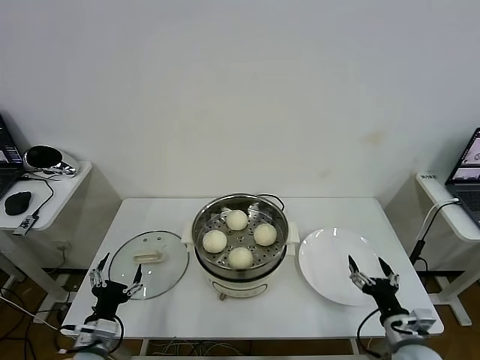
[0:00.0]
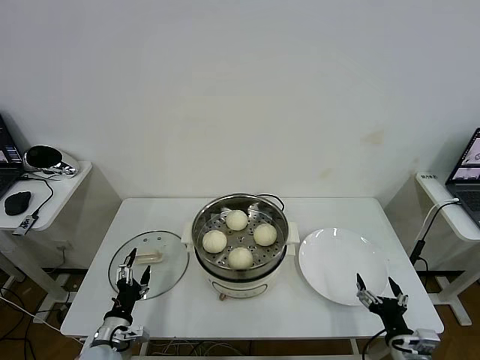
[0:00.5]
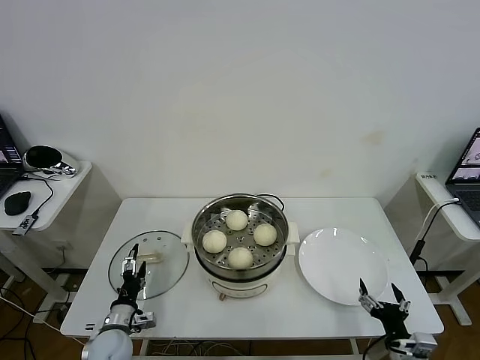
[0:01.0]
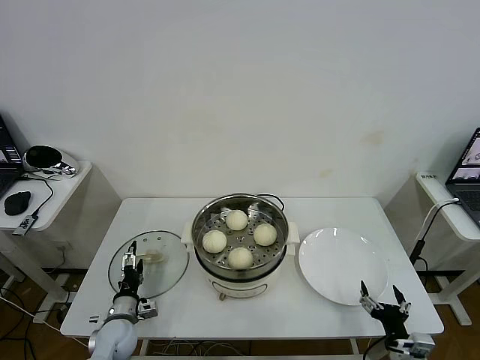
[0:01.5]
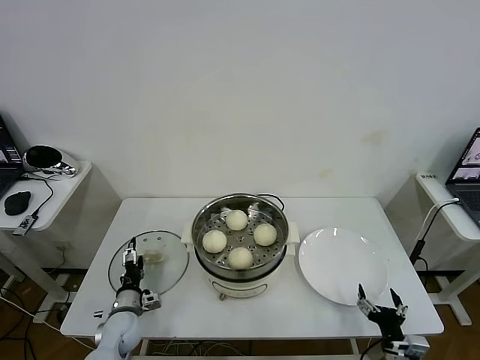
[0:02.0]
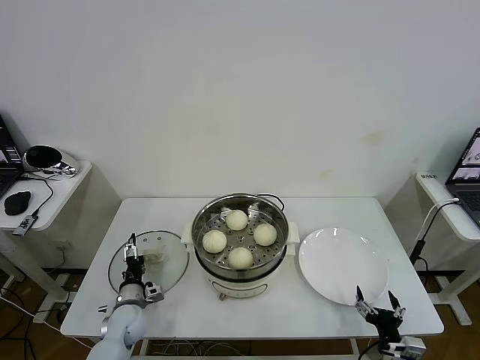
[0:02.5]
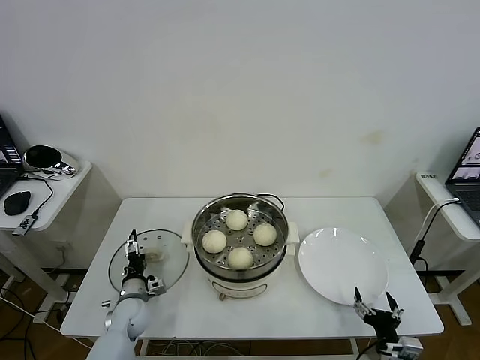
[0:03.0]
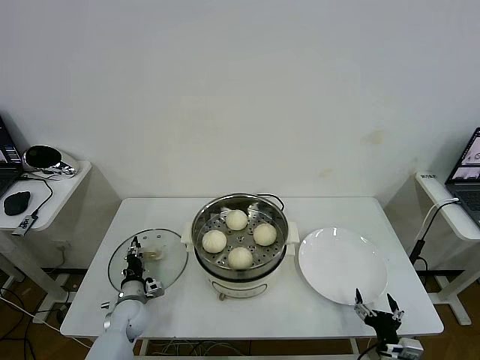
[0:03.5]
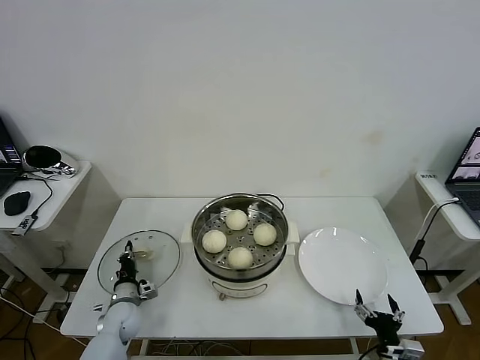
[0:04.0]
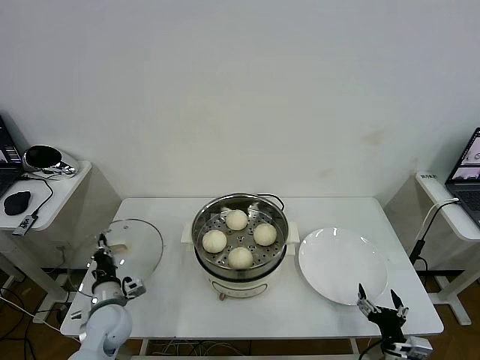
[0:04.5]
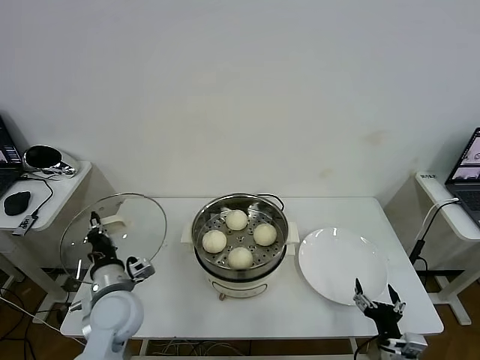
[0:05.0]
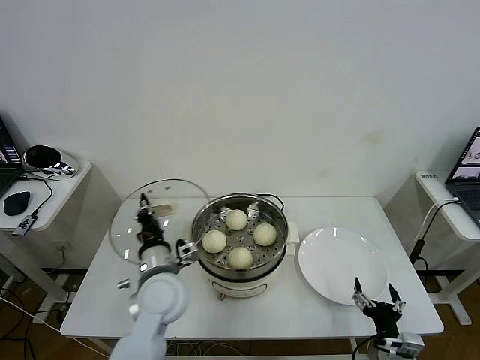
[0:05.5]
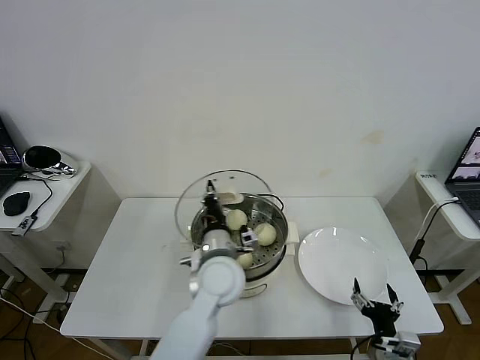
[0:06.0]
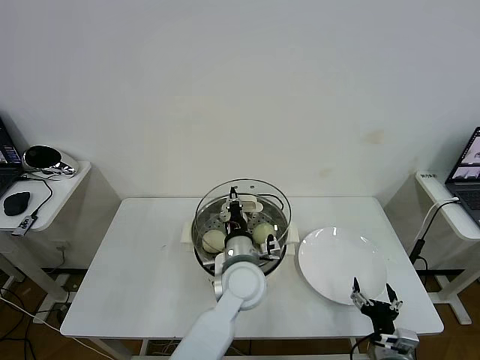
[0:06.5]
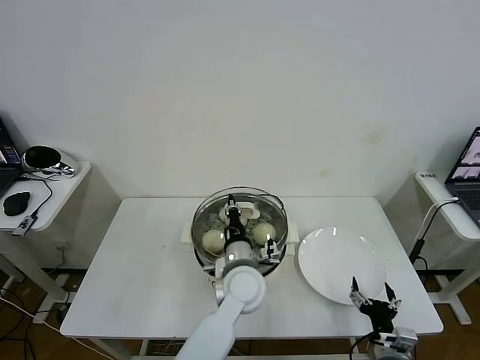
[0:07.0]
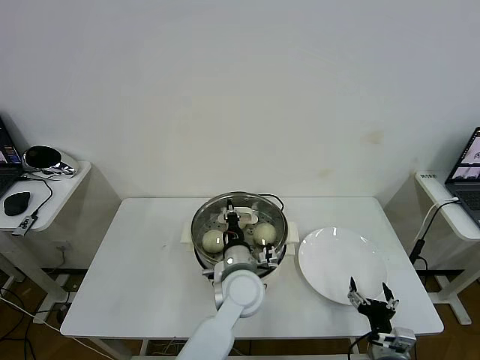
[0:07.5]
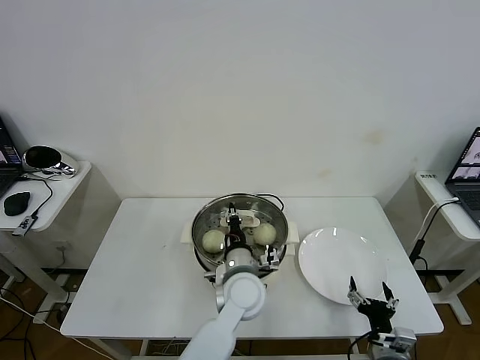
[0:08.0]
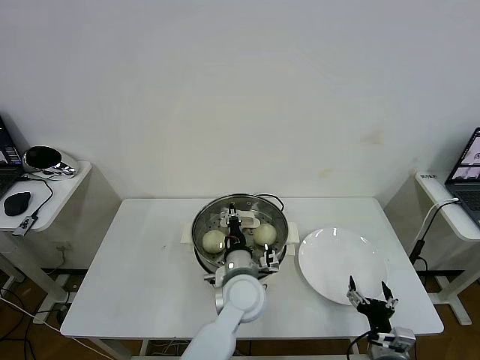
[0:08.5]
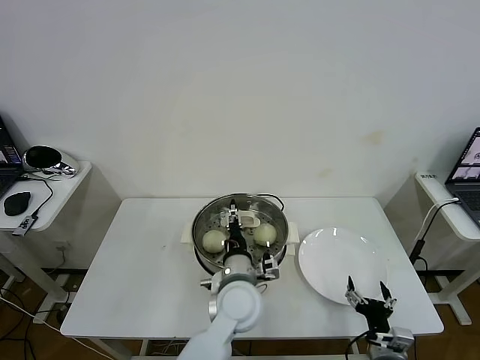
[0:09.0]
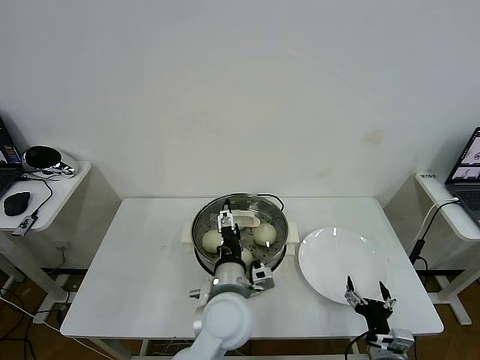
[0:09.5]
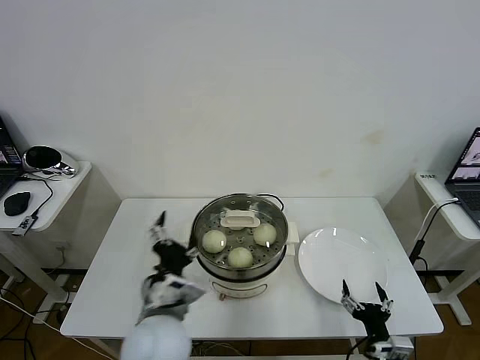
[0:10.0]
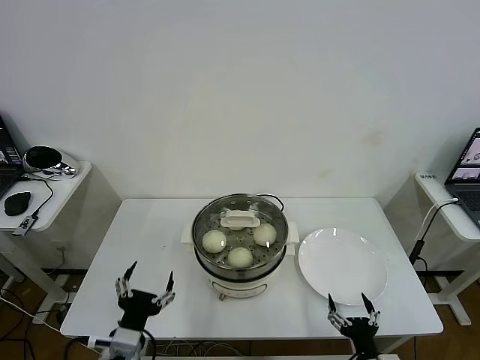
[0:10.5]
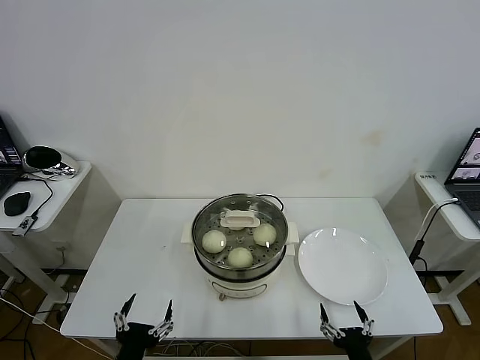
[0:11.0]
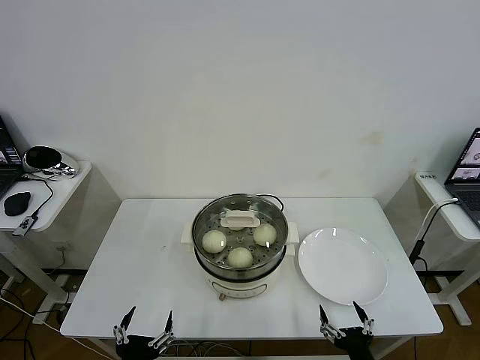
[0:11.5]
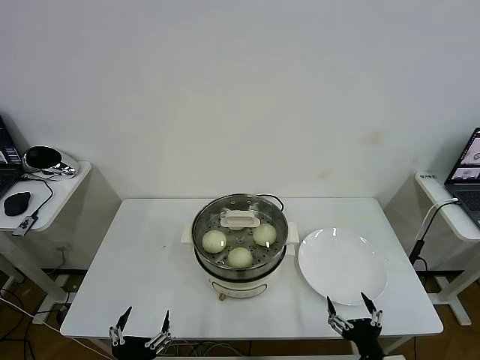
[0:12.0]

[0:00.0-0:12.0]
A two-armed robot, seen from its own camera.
Task of the whole recording: take steamed baozi put them in steamer then cover it.
Step, 0:00.0 to 0:04.0: Grasp the pot lid with left gripper.
Step, 0:04.5 to 0:09.0: Place the pot lid on the steamer with left gripper.
0:00.0 to 0:02.0: The right gripper is displaced downward by roughly 5 cm. Meanwhile the left gripper goes roughly 15 cm forward and downward.
0:02.0 to 0:04.0: The left gripper closes.
0:04.0 to 0:06.0: The left gripper travels to the right and upward by roughly 35 cm.
0:06.0 to 0:08.0: The left gripper is displaced to the right and downward by roughly 10 cm.
0:08.0 to 0:10.0: The left gripper shifts about 15 cm to the left, backward and upward, and opens its fingers.
0:10.0 to 0:12.0: The left gripper goes some 20 cm backward, to the left and downward. The right gripper moves backward, some 5 cm.

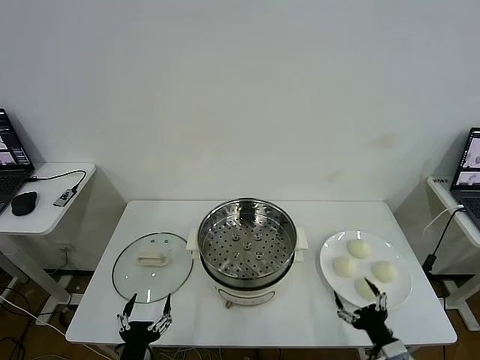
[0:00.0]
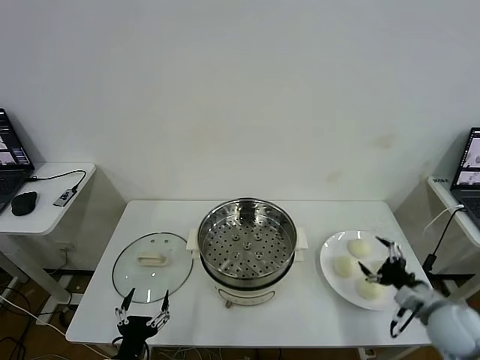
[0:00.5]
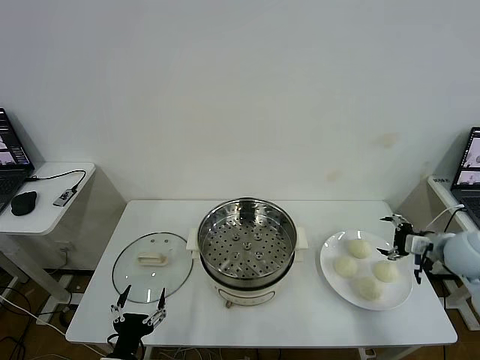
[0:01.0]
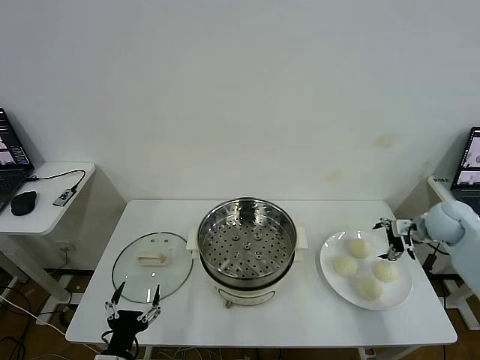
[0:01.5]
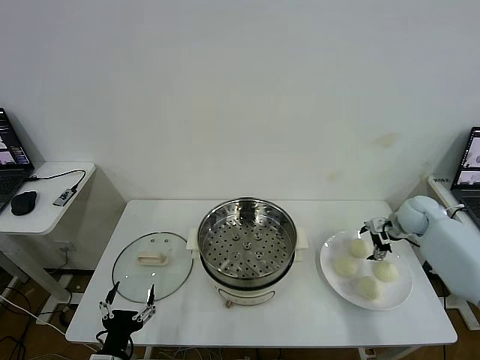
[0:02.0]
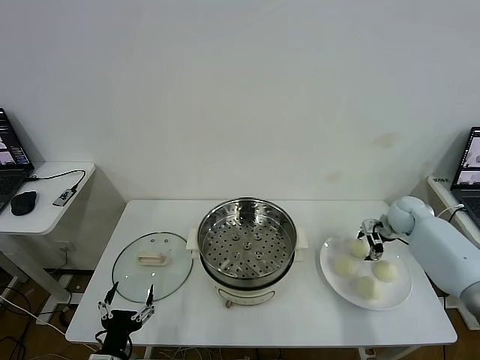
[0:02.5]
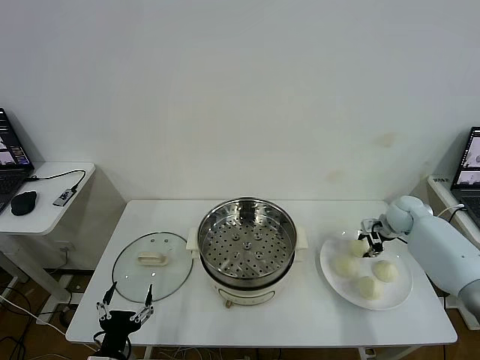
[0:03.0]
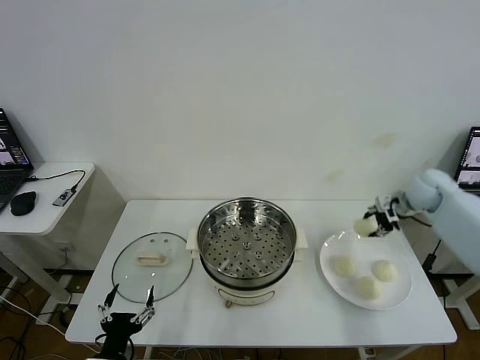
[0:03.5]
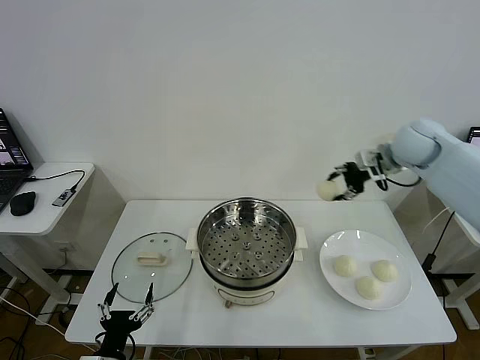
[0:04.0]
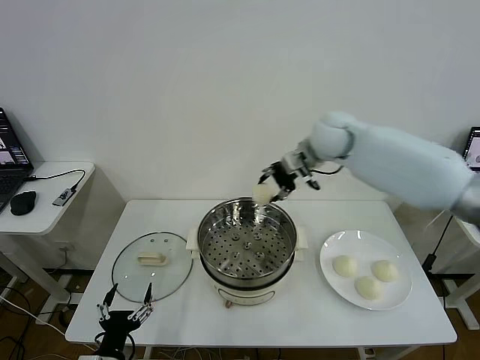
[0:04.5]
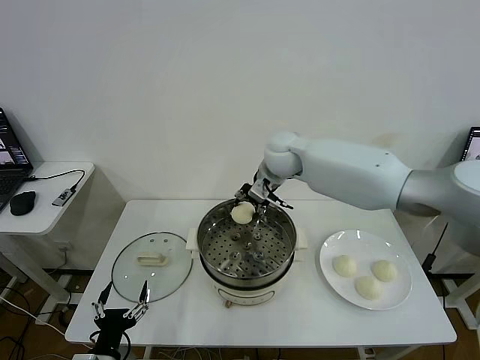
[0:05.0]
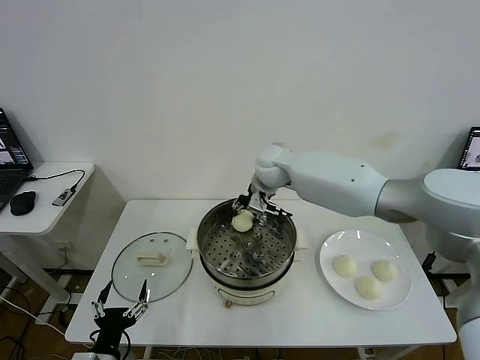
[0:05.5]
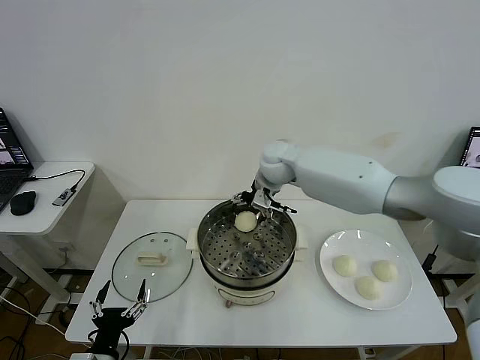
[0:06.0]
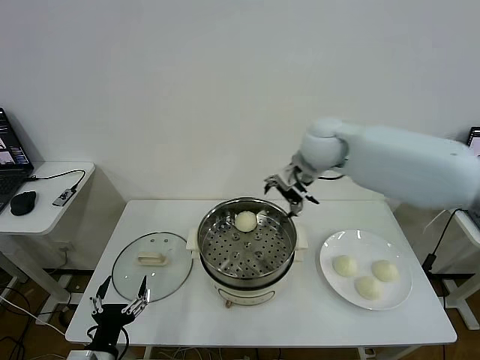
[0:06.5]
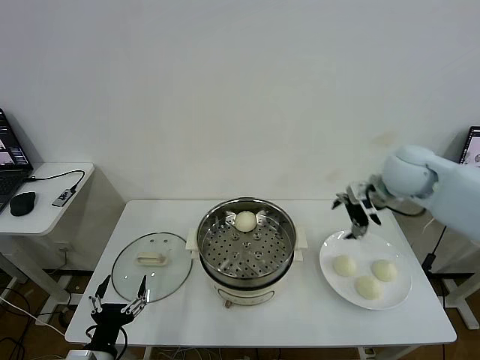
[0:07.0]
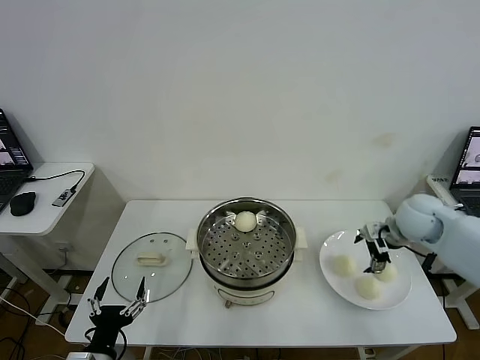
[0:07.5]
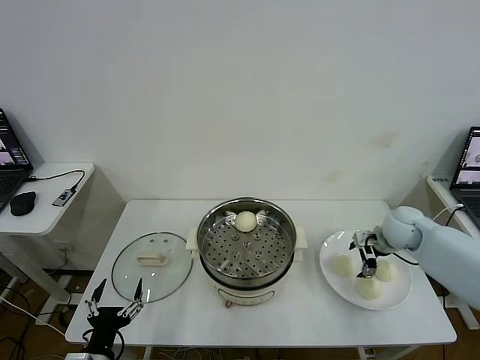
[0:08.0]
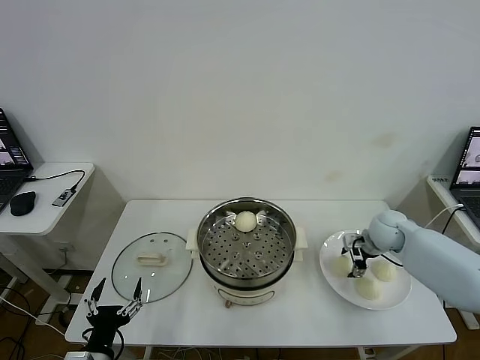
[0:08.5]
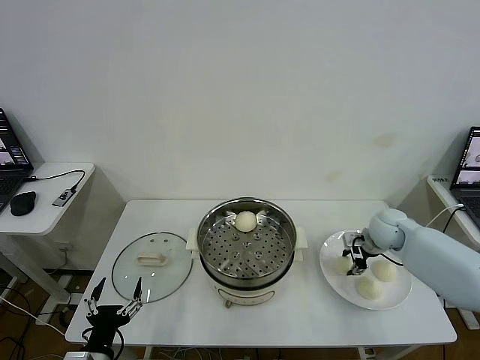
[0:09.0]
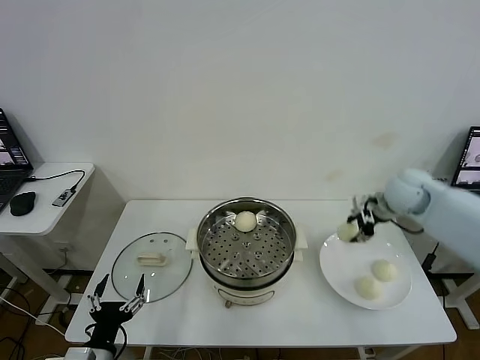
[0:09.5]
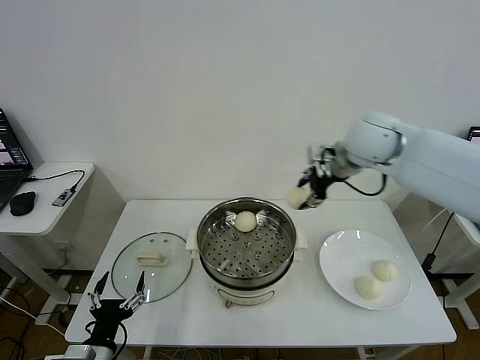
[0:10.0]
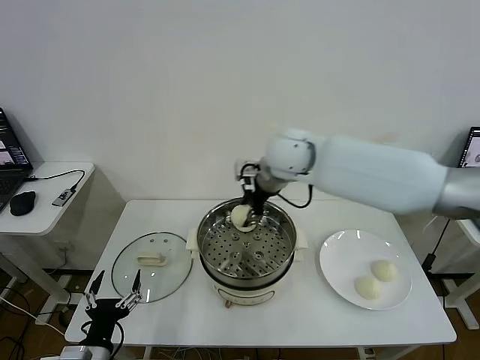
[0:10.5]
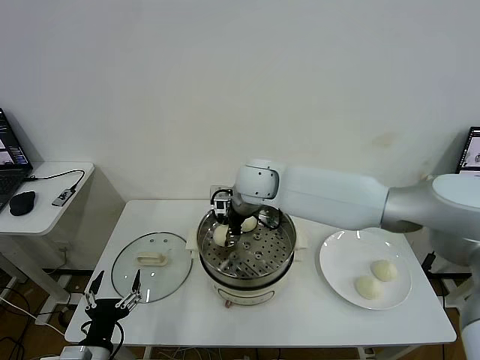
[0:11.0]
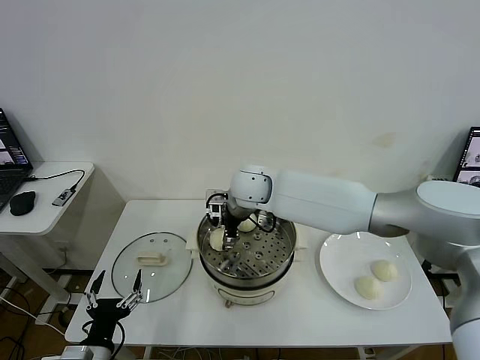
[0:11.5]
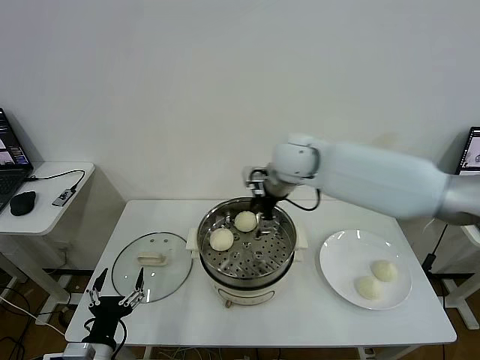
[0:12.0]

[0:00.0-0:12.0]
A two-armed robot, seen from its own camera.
Task of the whole recording: take steamed baozi put them in steamer then cover it.
Step, 0:00.0 to 0:02.5: Grasp the baozi in the plate with right gripper.
Step, 0:03.0 to 0:05.5: Place the baozi on the steamer with right gripper.
Step, 0:06.5 to 0:08.5: Grasp the baozi in the plate with right gripper.
Step, 0:09.0 to 0:11.5: Place the baozi on the steamer with right gripper.
0:02.0 to 0:04.0: The right gripper goes about 25 cm upward and to the left, and closes its fingers.
0:04.0 to 0:06.0: The right gripper heads to the left, covering about 25 cm, and opens its fingers.
0:06.0 to 0:08.0: The right gripper travels to the right and downward by roughly 30 cm.
0:08.0 to 0:10.0: The right gripper moves upward and to the left, approximately 30 cm, and closes up.
0:10.0 to 0:12.0: The right gripper goes about 10 cm to the left, and opens.

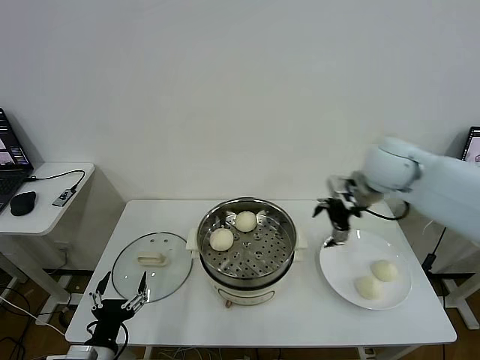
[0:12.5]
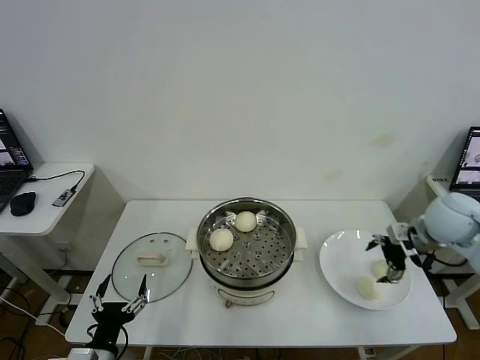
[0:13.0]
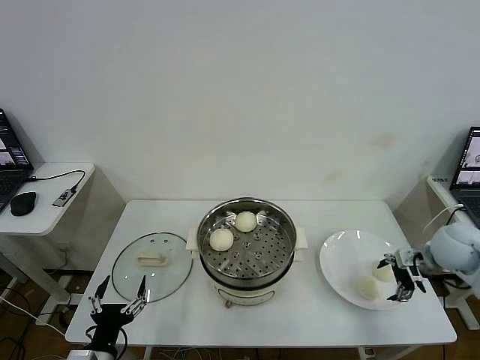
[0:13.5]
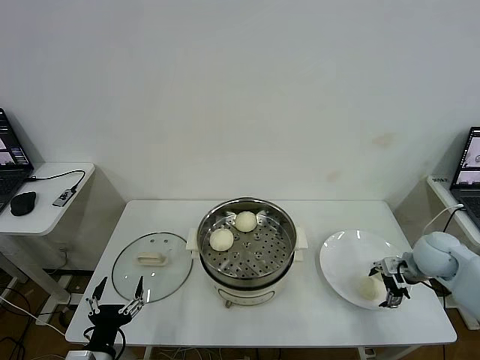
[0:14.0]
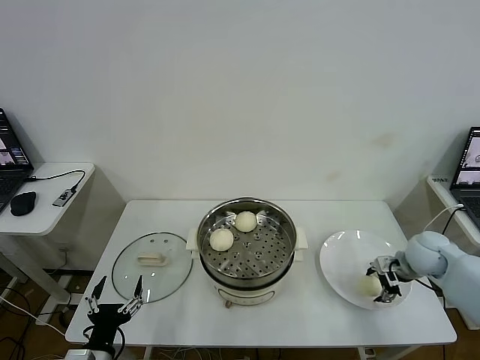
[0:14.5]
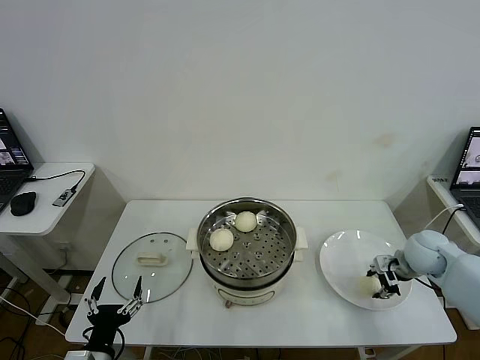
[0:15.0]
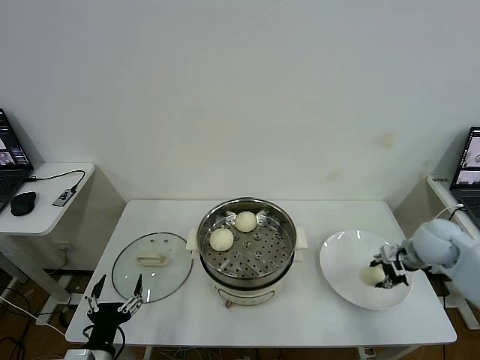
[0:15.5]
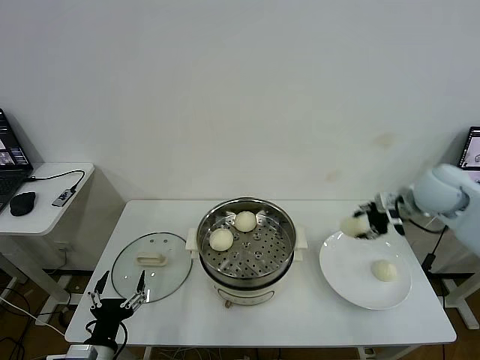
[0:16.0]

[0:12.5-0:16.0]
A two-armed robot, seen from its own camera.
Task of the whole recording: take steamed baozi put them in steamer then cover it.
Step, 0:12.5 to 0:14.5: Grasp the baozi in the plate with right gripper.
0:12.5 to 0:14.5: The right gripper moves downward and to the right, approximately 25 cm, and closes up.
0:14.5 to 0:16.0: The right gripper shifts about 15 cm upward, and closes its fingers.
